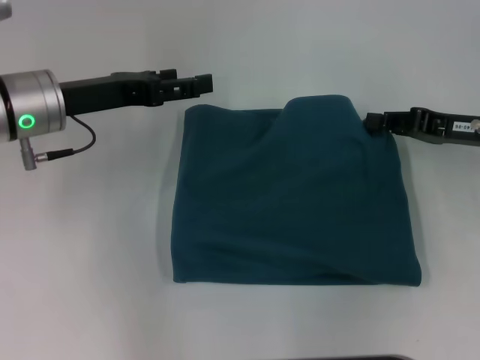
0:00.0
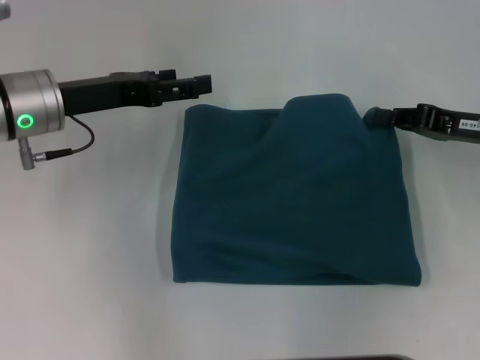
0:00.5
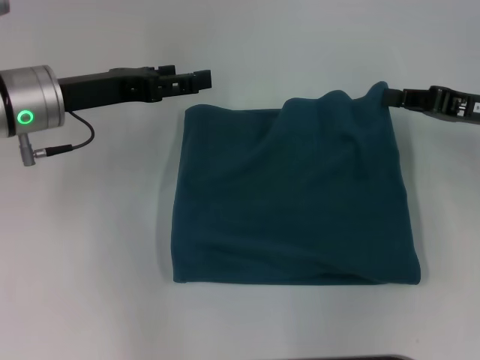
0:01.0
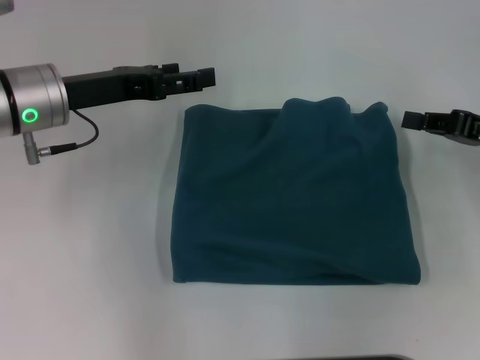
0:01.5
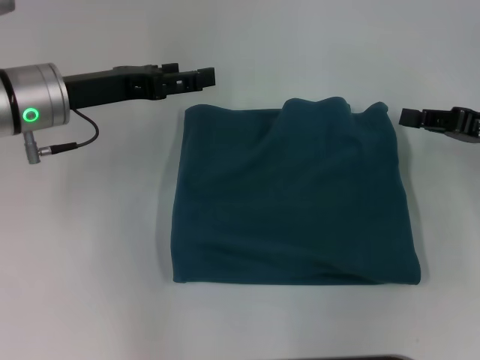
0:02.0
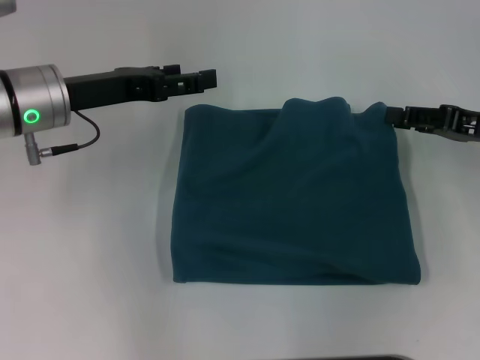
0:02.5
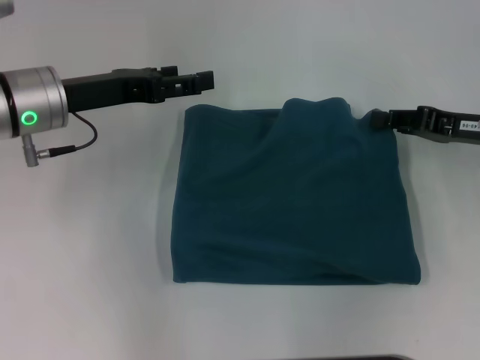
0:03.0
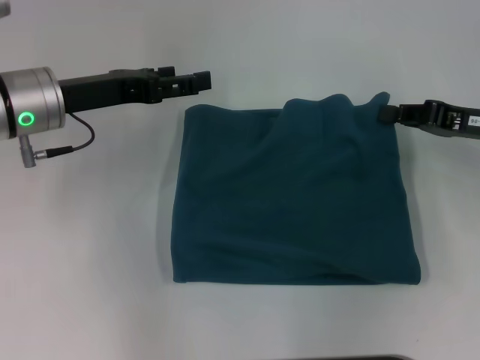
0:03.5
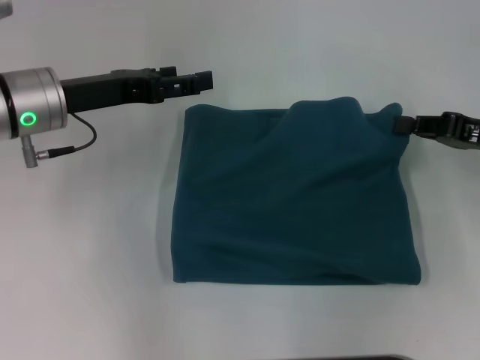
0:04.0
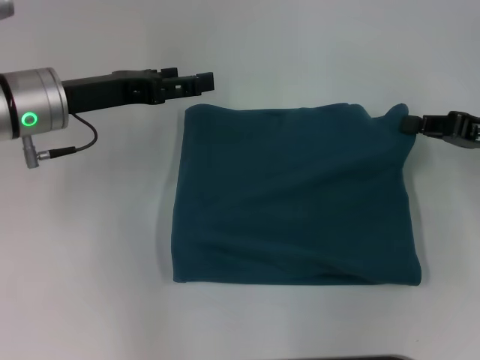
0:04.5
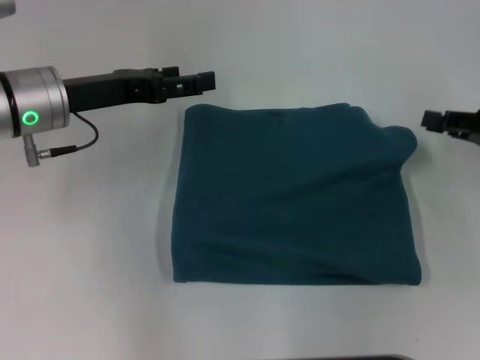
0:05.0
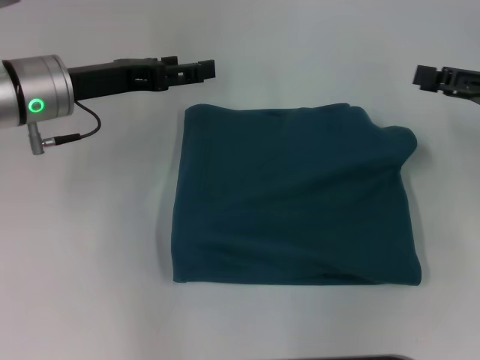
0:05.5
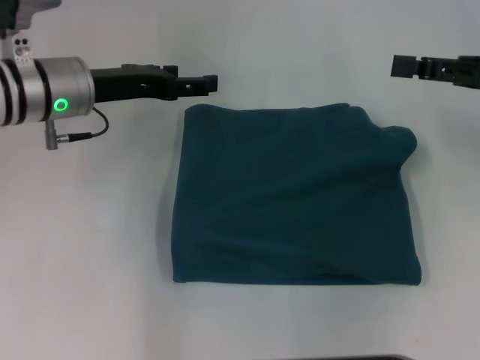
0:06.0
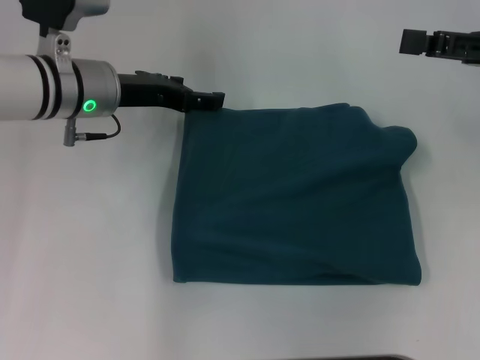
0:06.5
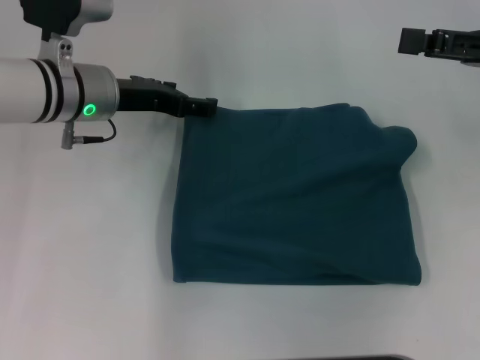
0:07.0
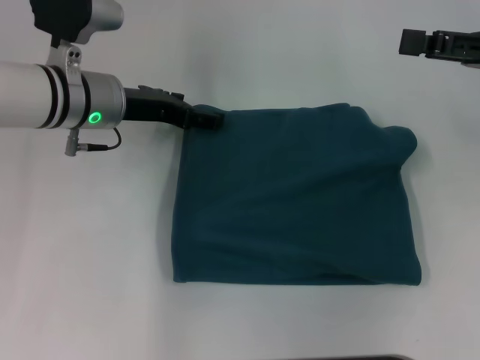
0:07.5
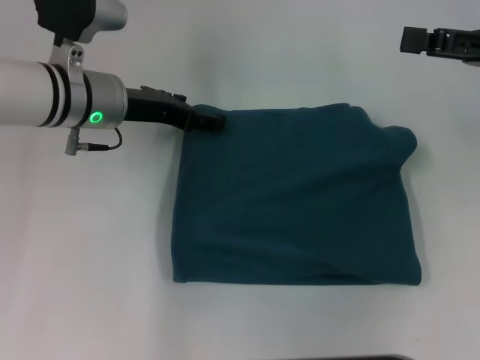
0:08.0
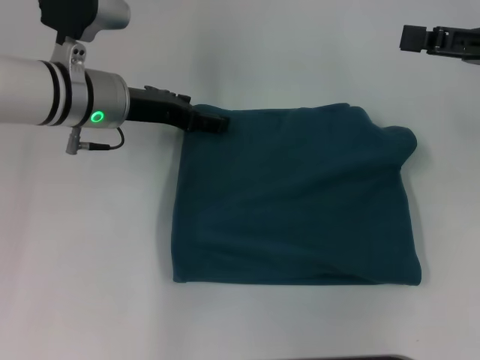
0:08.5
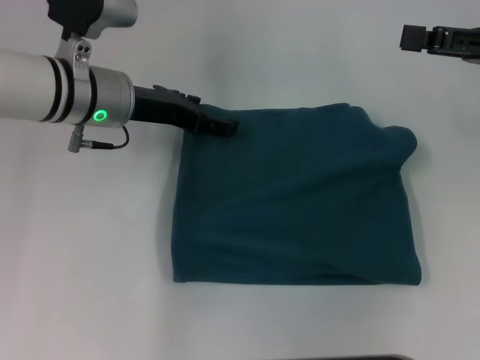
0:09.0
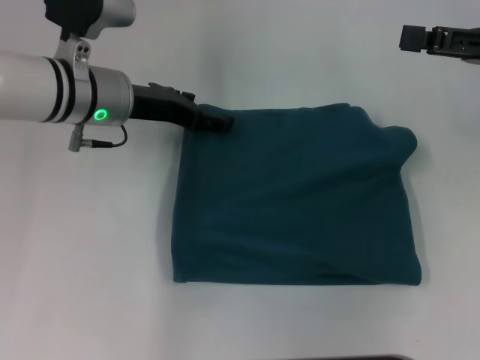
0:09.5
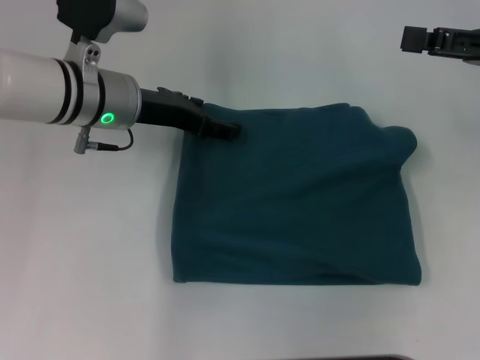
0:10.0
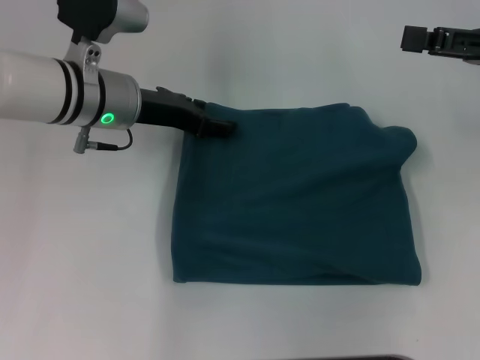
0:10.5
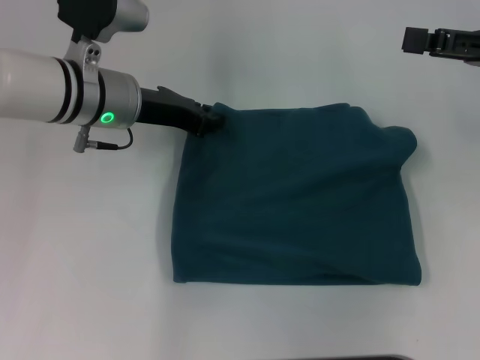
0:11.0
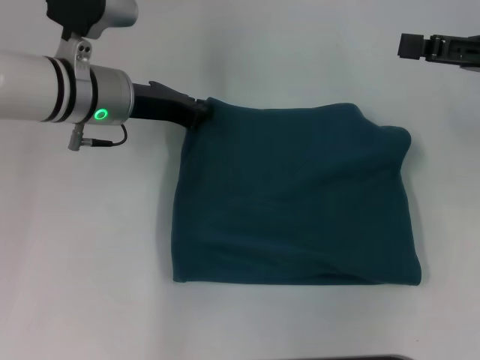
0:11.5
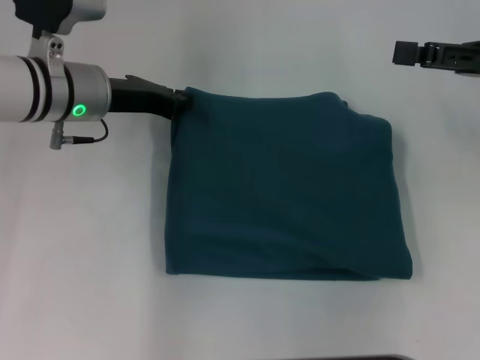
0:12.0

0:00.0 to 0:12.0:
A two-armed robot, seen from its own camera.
0:00.0 to 0:02.0: There are only small adjustments of the grippers.
0:02.0 to 0:04.0: The right gripper opens and closes again.
0:04.0 to 0:06.0: The right gripper heads upward, covering about 5 cm, and opens up.
0:06.0 to 0:10.0: The grippers move only a little.
0:10.0 to 0:12.0: The left gripper closes its fingers.

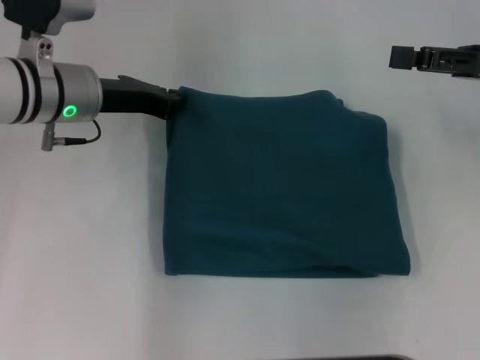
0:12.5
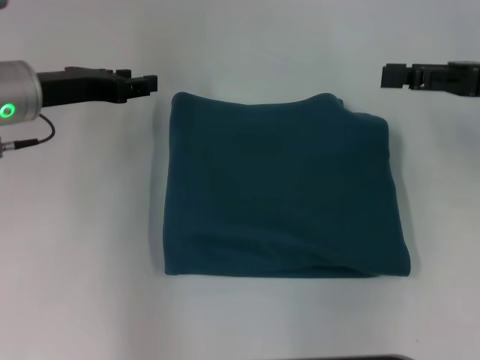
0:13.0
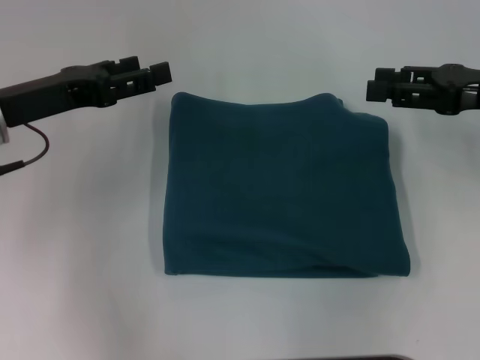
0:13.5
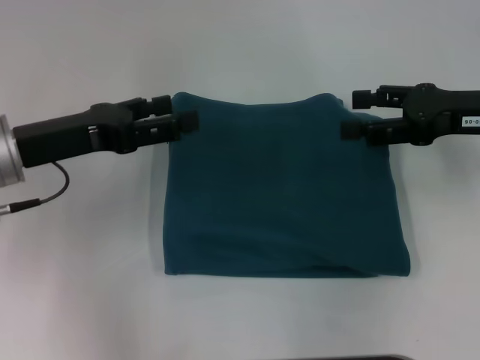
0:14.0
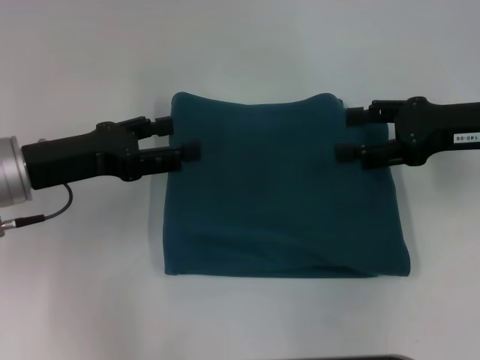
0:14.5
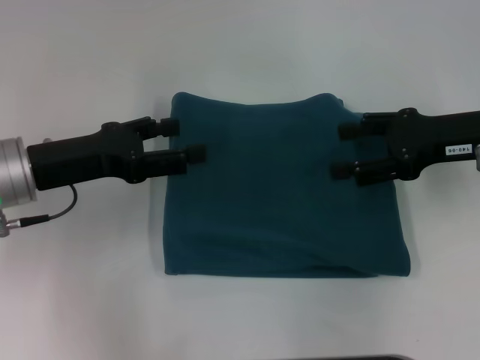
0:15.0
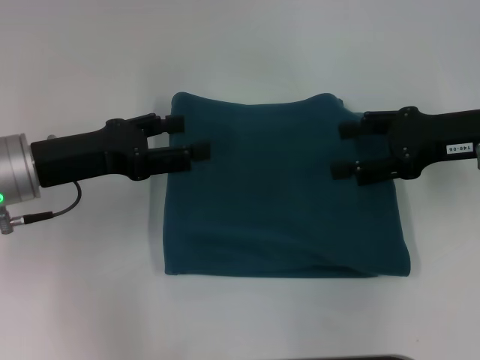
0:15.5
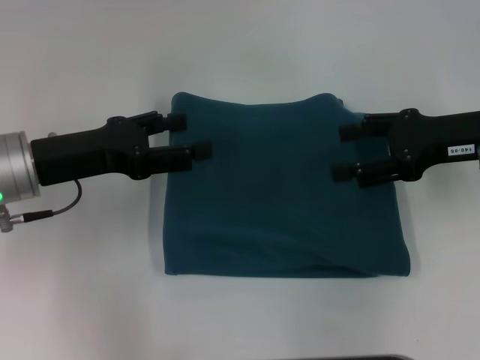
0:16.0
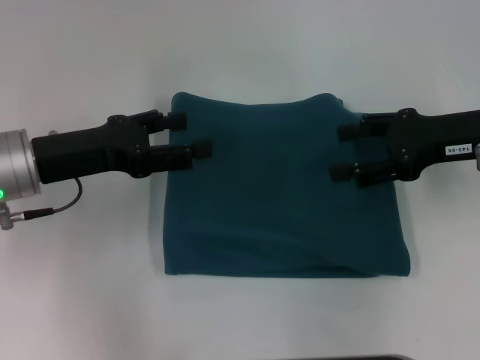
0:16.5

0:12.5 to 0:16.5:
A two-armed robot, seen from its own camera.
0:12.5 to 0:14.5: The right gripper moves roughly 5 cm, while the left gripper travels backward and to the left by about 10 cm, and opens up.
0:14.5 to 0:16.5: Both grippers stay about where they are.

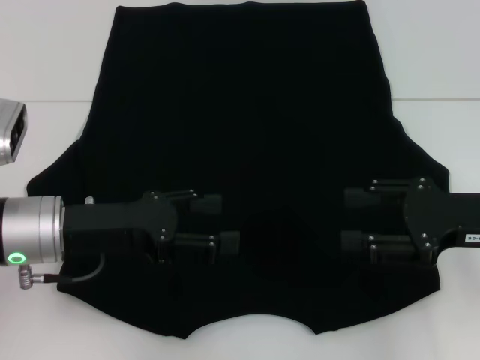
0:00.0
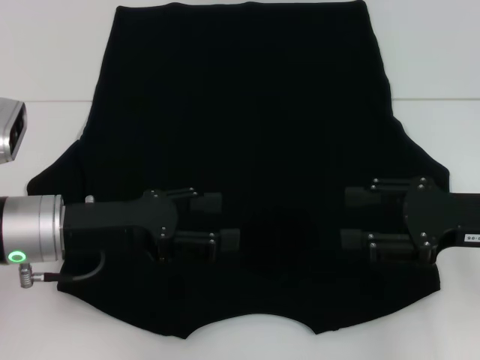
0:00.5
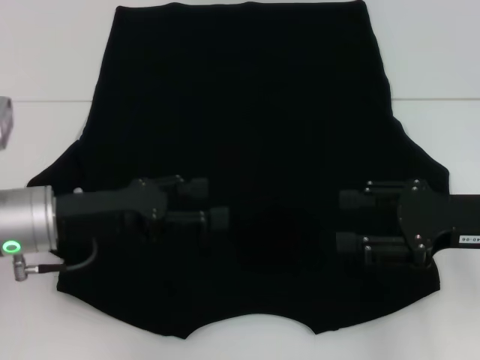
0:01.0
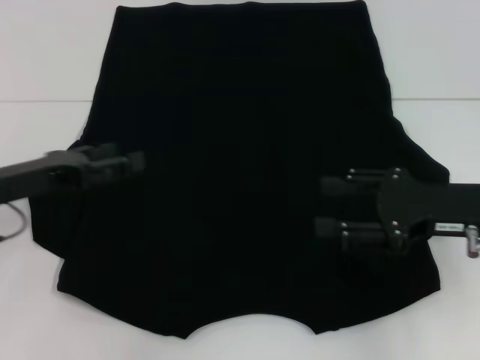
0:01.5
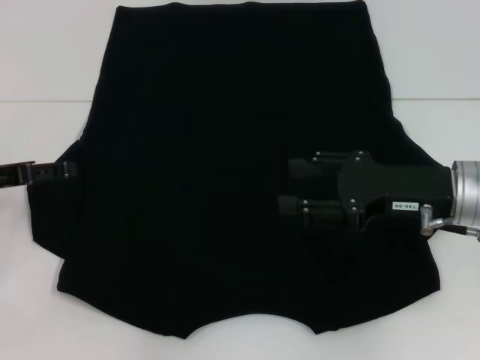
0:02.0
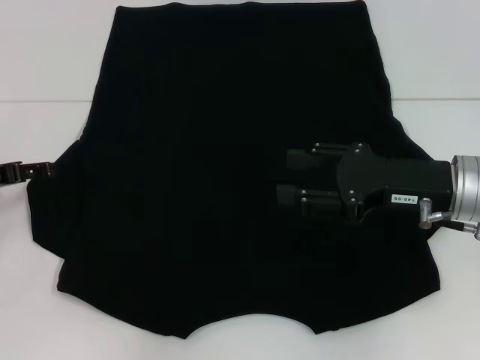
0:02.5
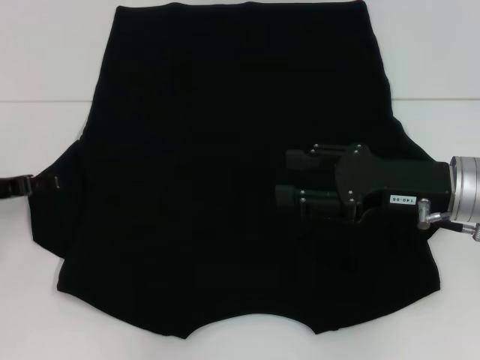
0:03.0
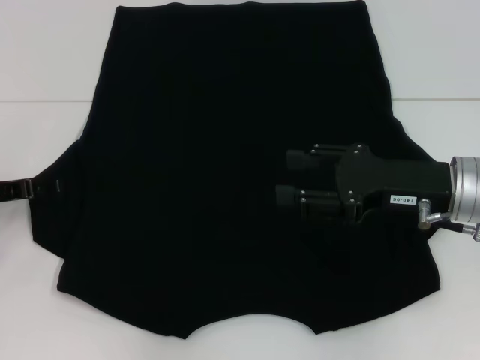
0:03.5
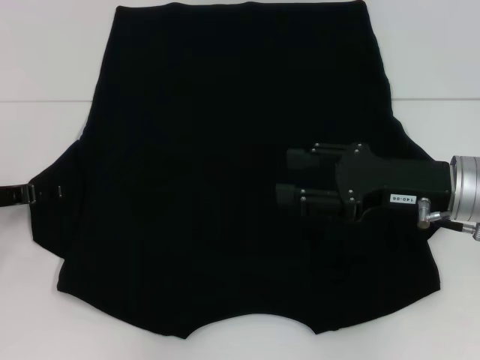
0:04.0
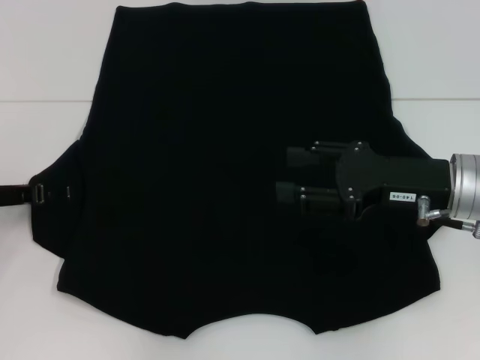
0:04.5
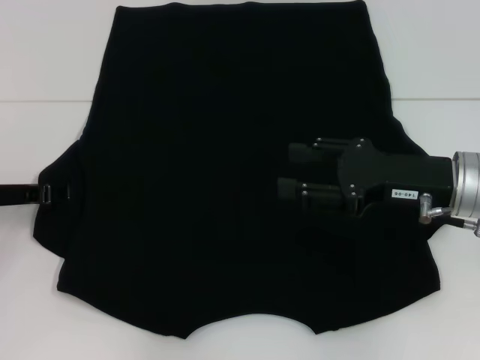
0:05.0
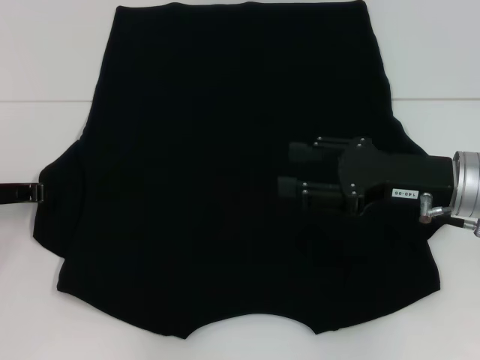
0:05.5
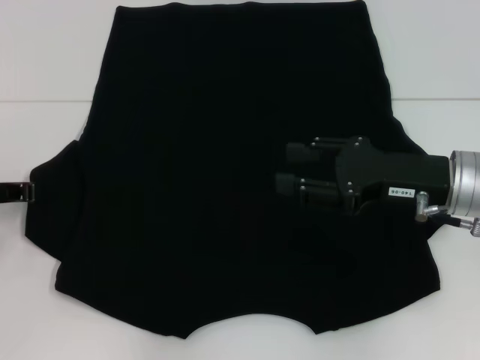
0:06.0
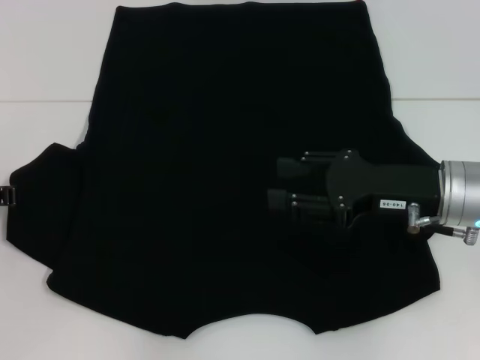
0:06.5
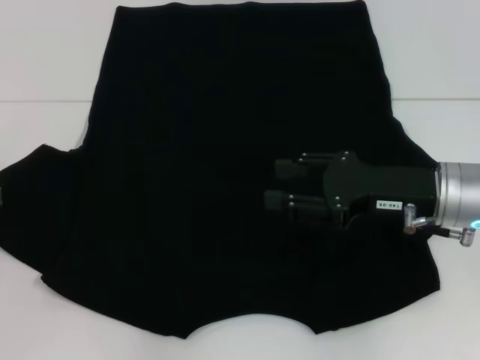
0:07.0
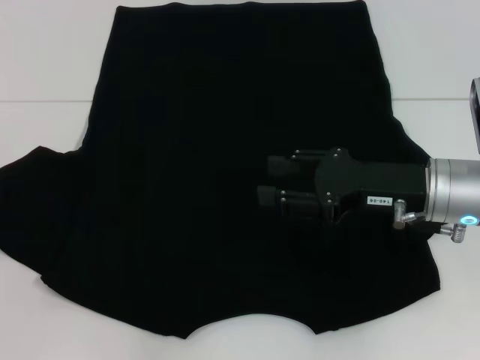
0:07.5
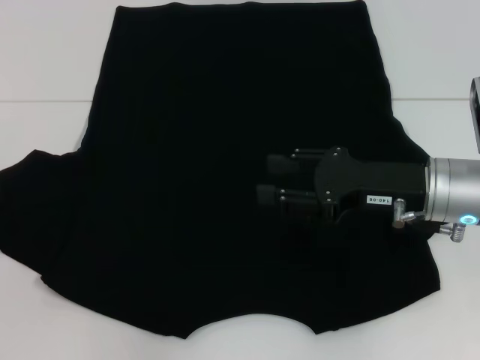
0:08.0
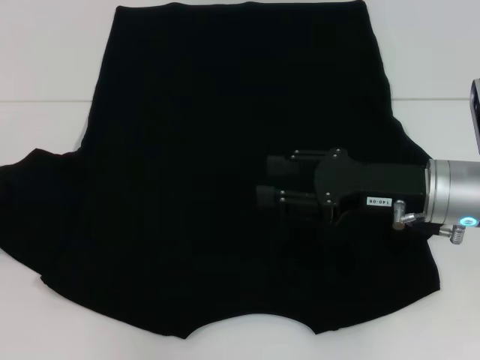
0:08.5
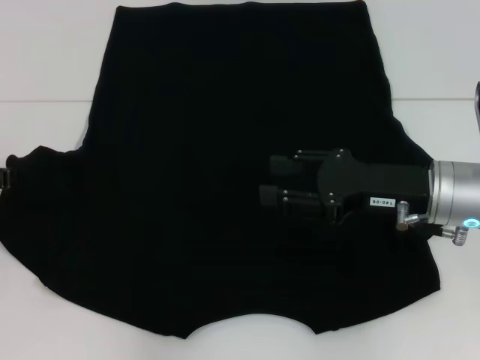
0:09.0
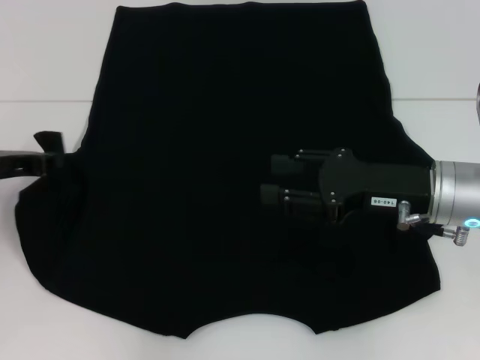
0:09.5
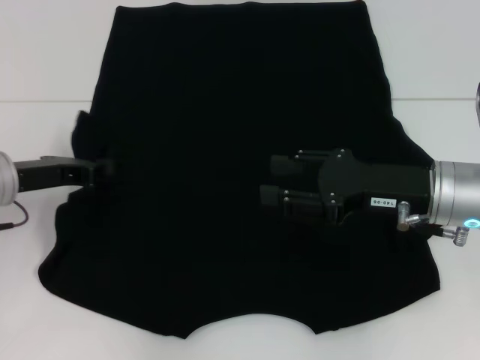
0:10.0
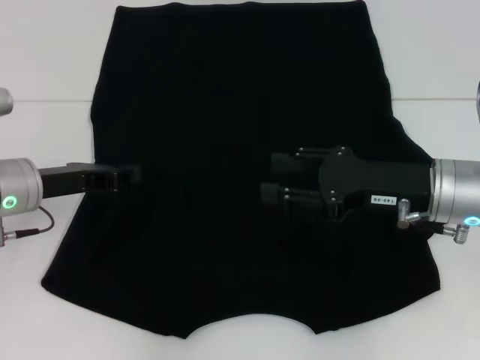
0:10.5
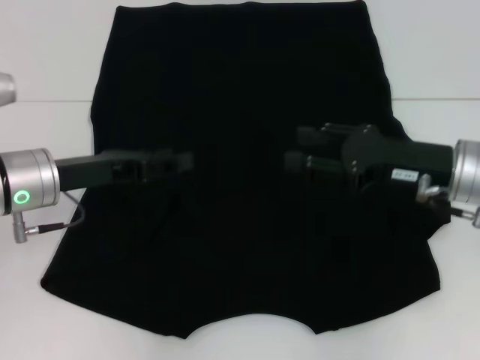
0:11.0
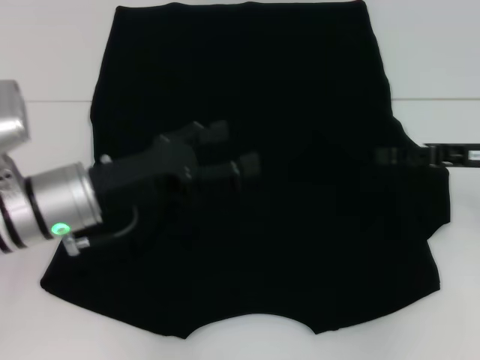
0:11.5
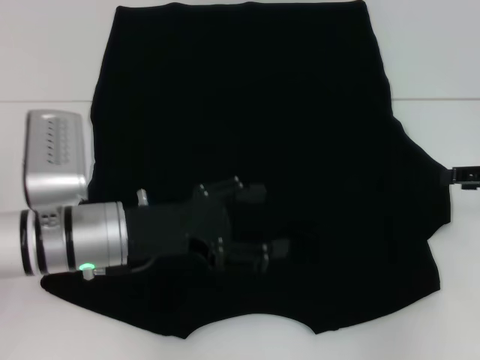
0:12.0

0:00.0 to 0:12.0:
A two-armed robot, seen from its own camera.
Step, 0:00.0 to 0:10.5: Fold the bottom left sleeve with your left hand.
0:00.0 to 0:02.0: The right gripper goes roughly 5 cm to the left, while the left gripper goes about 10 cm to the left.
0:02.0 to 0:04.0: The grippers move only a little.
0:04.0 to 0:06.0: The left gripper closes up.
0:06.0 to 0:08.0: There are only small adjustments of the grippers.
0:08.0 to 0:10.0: The left gripper moves to the right, some 5 cm.
0:10.0 to 0:12.0: Both grippers move to the right, some 15 cm. The left gripper opens its fingers.
